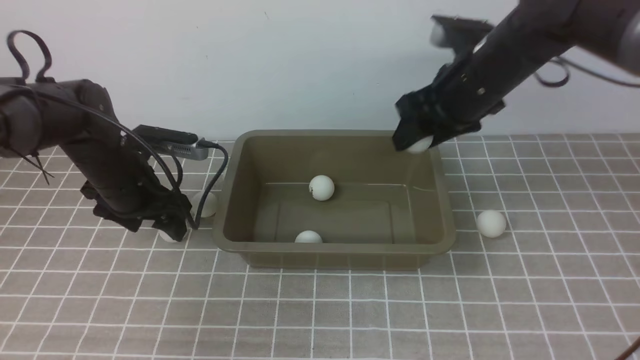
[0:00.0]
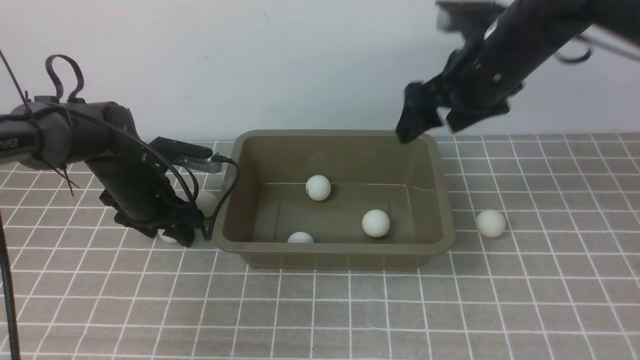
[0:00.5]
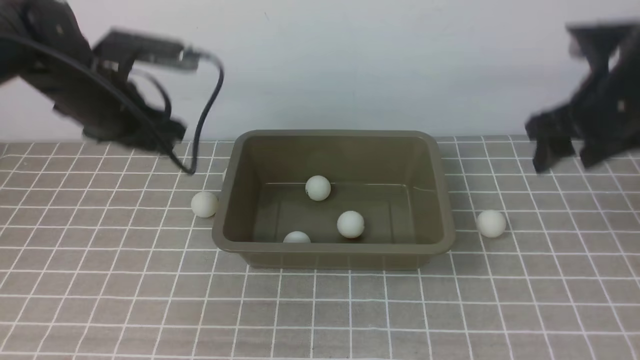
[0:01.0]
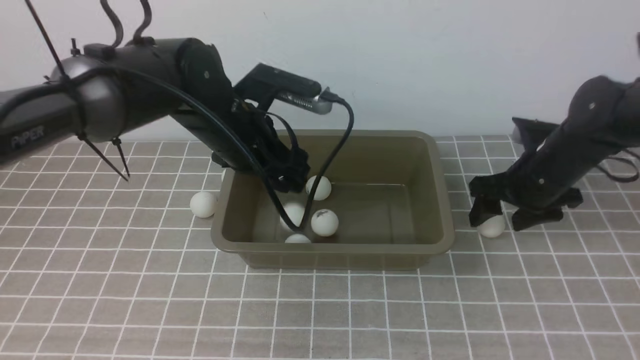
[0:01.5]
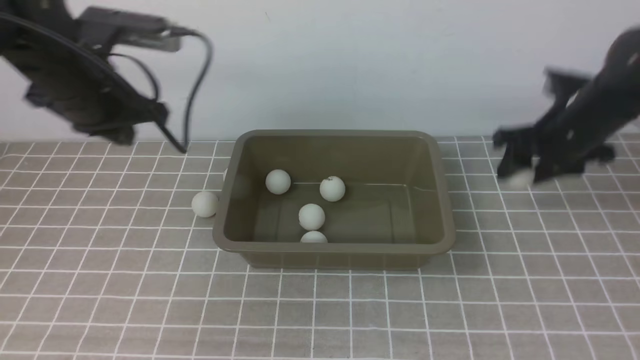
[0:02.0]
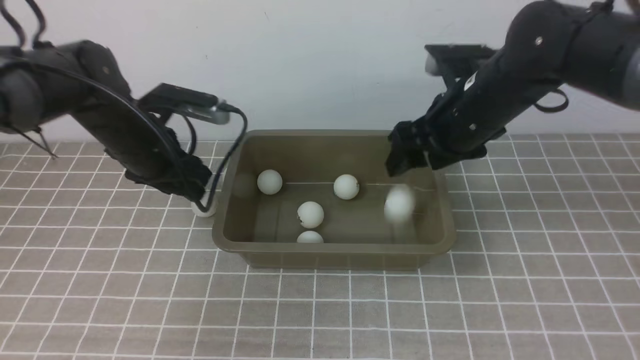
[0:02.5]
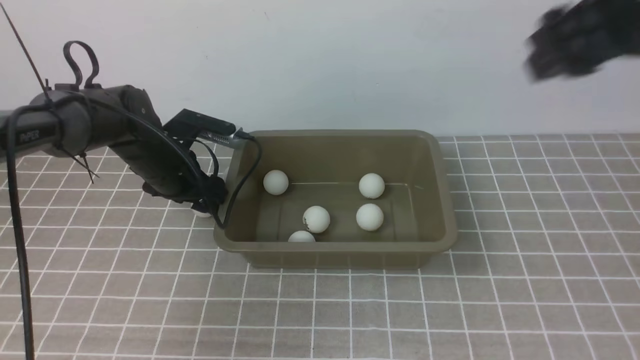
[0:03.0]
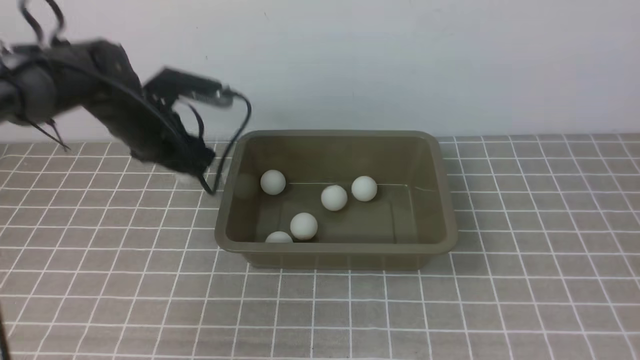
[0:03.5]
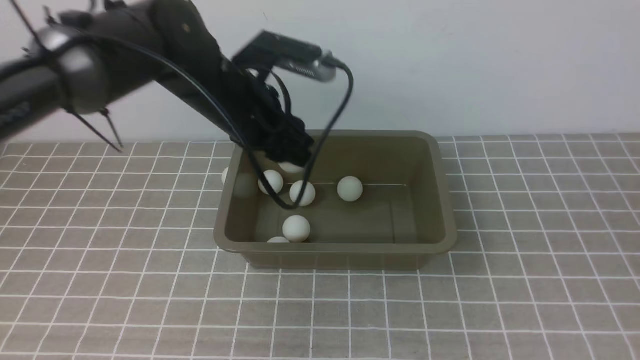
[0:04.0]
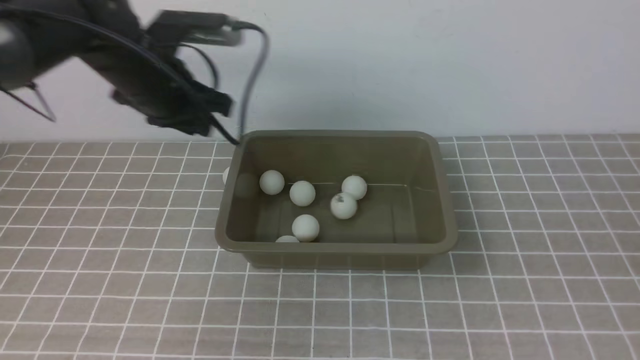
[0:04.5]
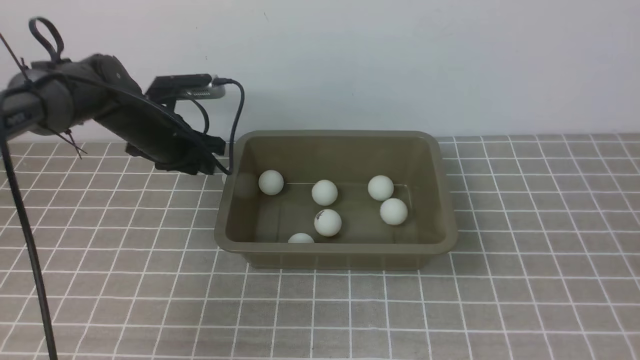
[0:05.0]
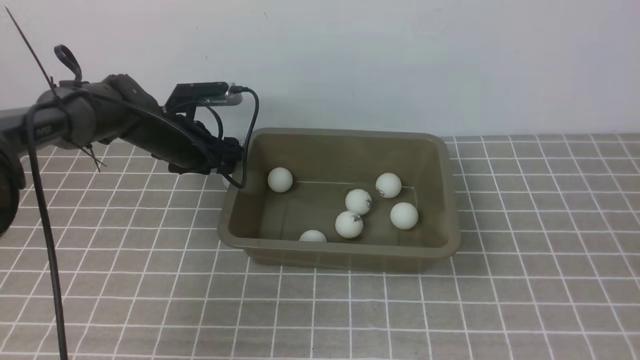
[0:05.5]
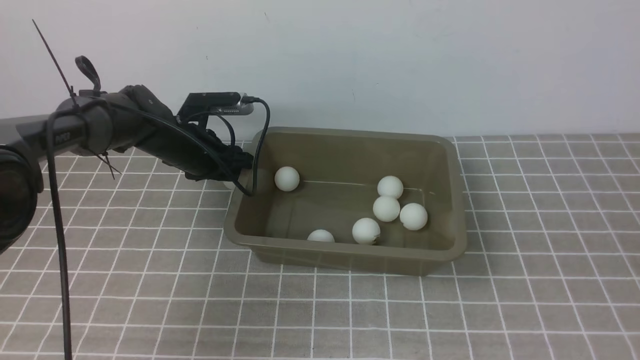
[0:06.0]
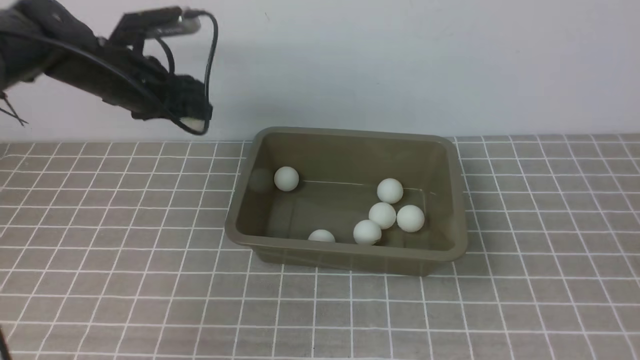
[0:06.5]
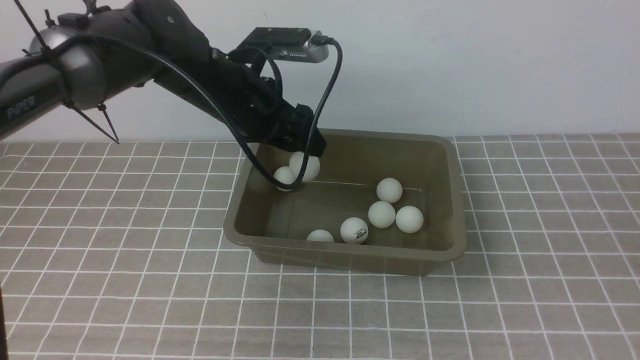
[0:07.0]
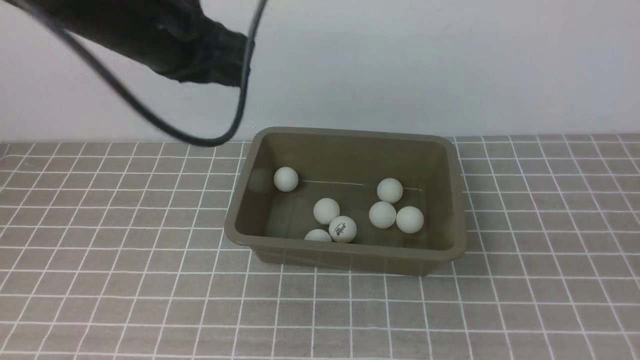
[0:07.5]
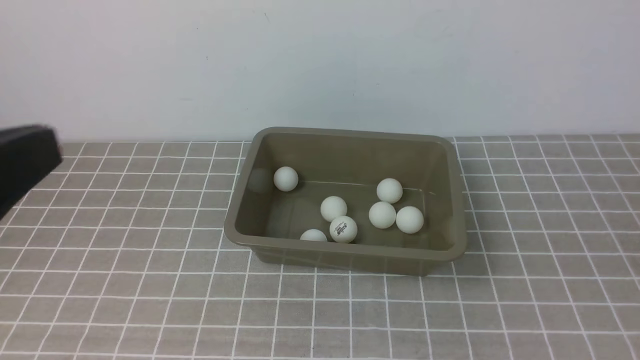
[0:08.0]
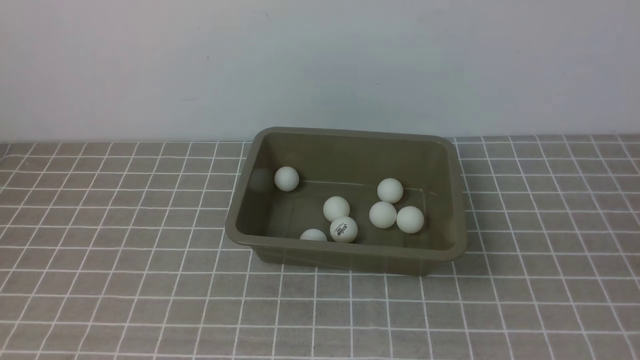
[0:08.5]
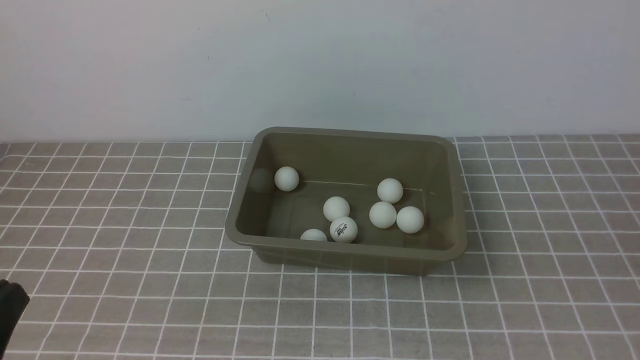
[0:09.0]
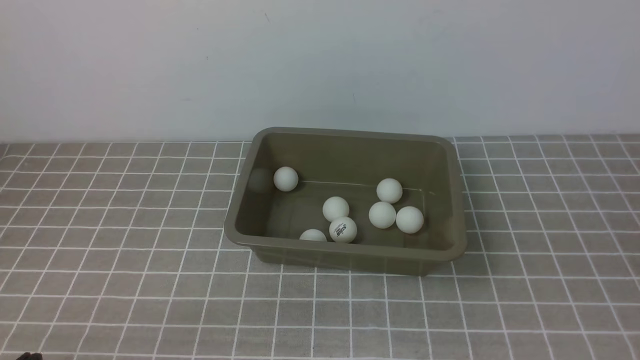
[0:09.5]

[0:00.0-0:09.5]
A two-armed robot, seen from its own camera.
Step, 0:00.5 to 0:01.5: use the left arm to put the table tennis ball into the box.
Step, 0:03.0 to 0:03.5: use the left arm to clamp the table tennis ball closest to it.
Step, 0:04.5 to 0:06.0: use the left arm to clamp the table tennis ball closest to it.
Step, 0:06.5 to 0:07.0: use the left arm to put the table tennis ball into the box.
0:00.0 to 0:02.0: The left gripper travels upward by some 10 cm, and closes its fingers. The right gripper goes up and down, roughly 15 cm each way, reversing 2 times.
0:02.0 to 0:04.0: The left gripper goes about 10 cm to the right, travels downward and back again, some 15 cm each way, and opens up; the right gripper heads backward, covering about 40 cm, and closes.
0:04.0 to 0:05.5: The right gripper shifts roughly 5 cm downward; the left gripper goes some 15 cm downward, to the left and forward.
0:05.5 to 0:07.5: The left gripper travels upward and backward by about 30 cm, and closes.
0:07.5 to 0:09.5: The left gripper goes roughly 35 cm backward, downward and to the left.

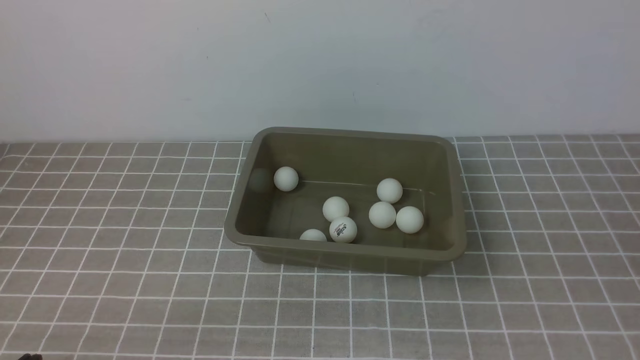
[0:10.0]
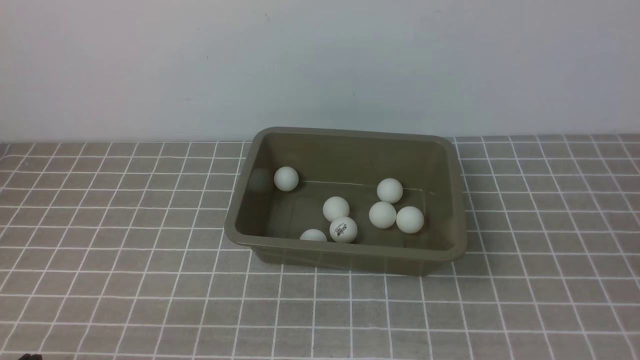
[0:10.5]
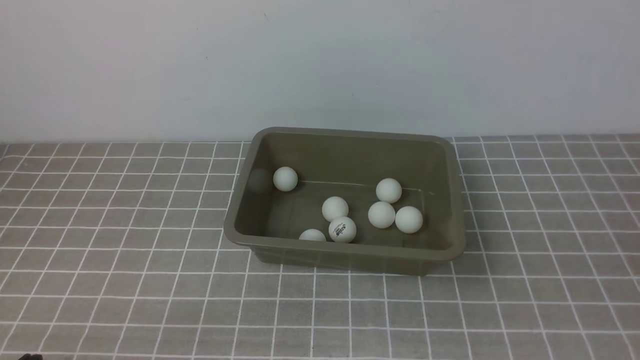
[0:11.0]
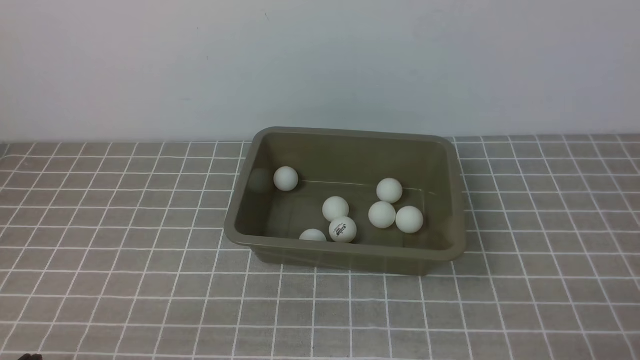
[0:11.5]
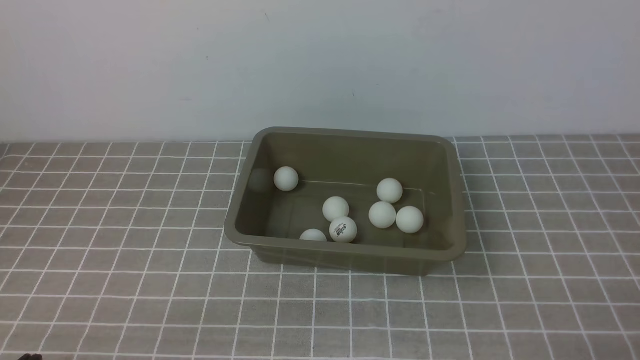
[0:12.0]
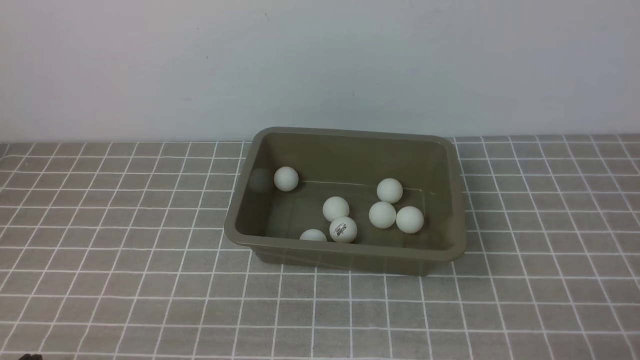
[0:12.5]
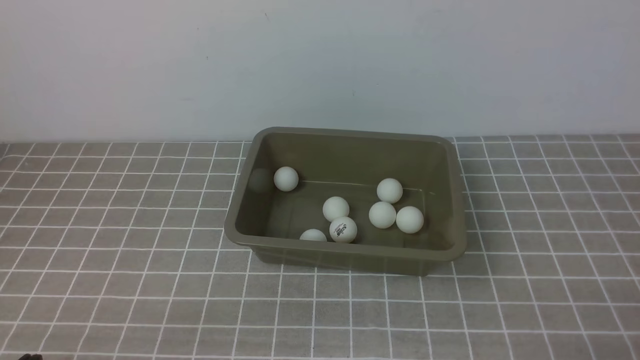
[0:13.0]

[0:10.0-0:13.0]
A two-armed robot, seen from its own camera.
0:11.5 to 0:13.0: Both grippers stay put.
